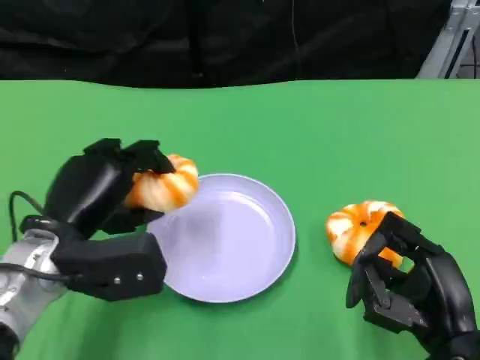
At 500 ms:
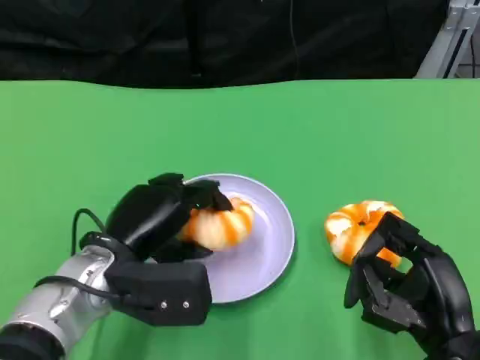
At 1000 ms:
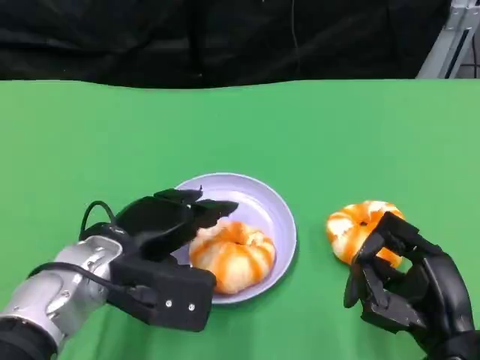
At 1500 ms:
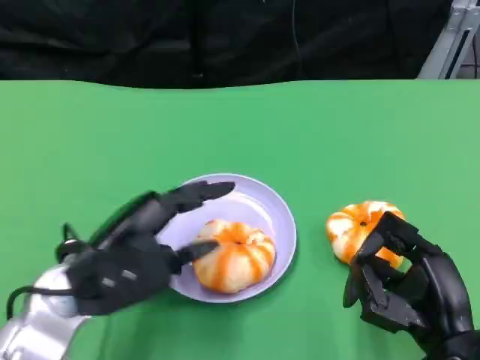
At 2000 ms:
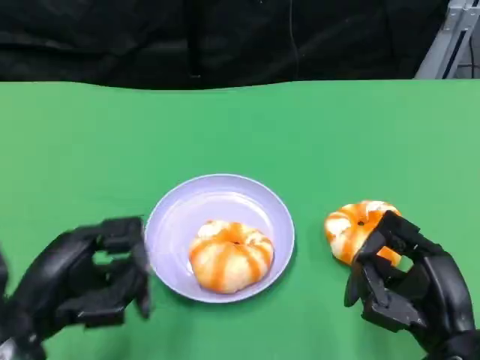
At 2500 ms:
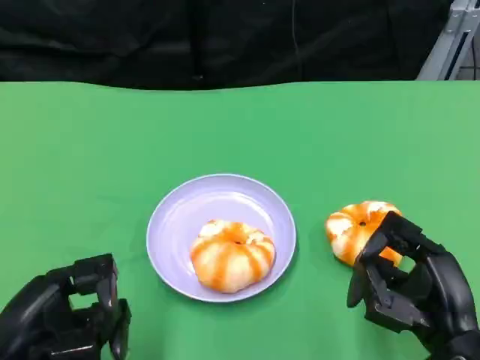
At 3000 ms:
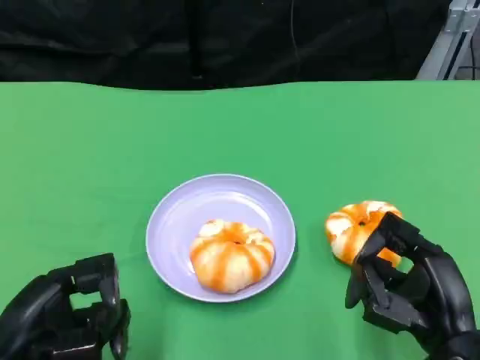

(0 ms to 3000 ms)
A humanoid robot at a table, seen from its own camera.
Task of the whole recording: Grasp the bread from the table and place it into the plate.
1500 ms - 3000 ms: The left hand is displaced backward and to the left by some 10 cm.

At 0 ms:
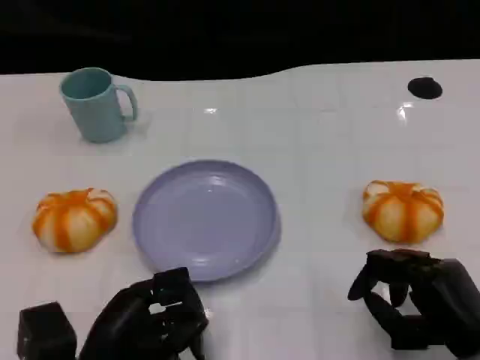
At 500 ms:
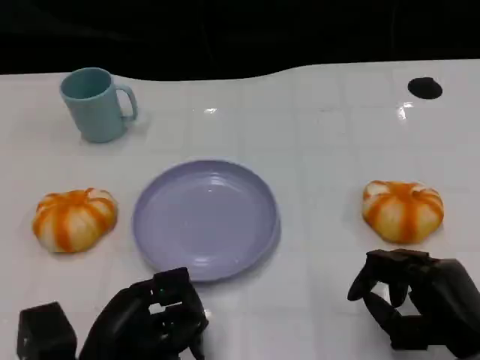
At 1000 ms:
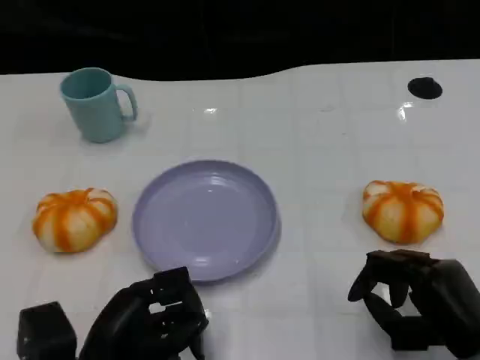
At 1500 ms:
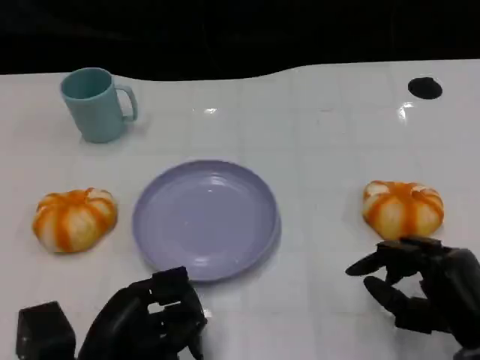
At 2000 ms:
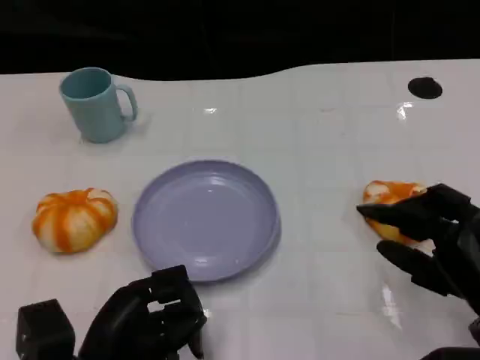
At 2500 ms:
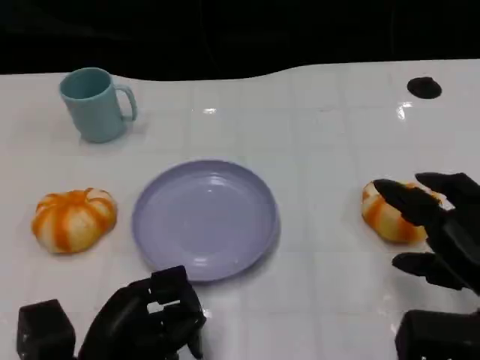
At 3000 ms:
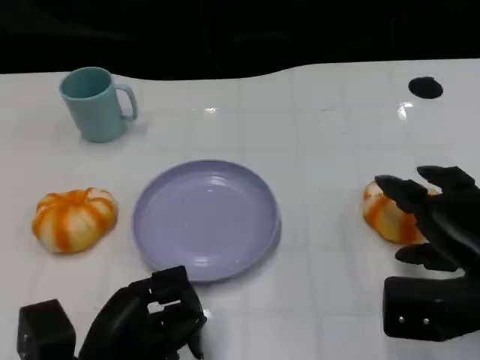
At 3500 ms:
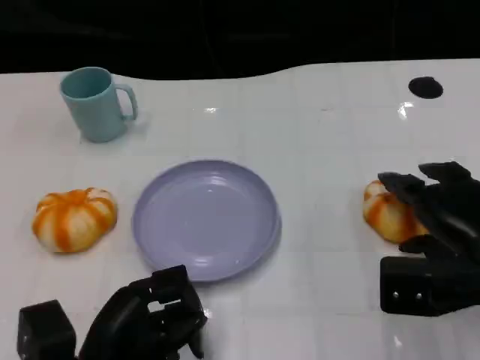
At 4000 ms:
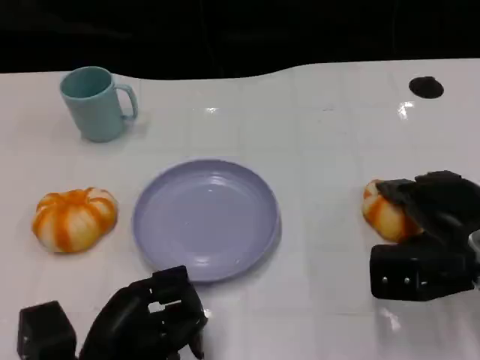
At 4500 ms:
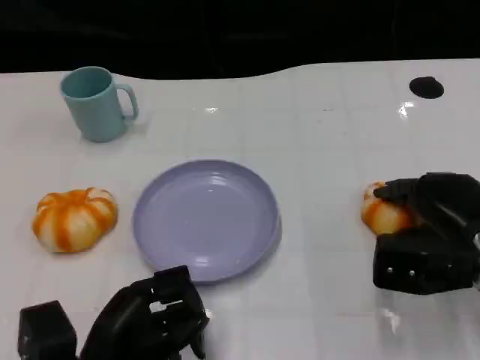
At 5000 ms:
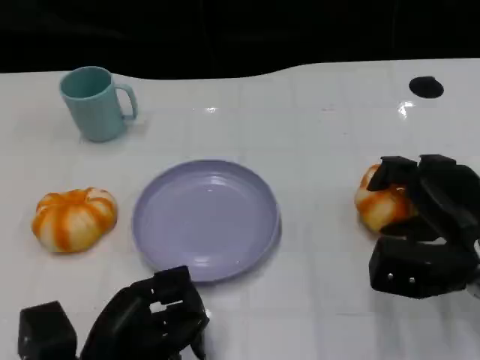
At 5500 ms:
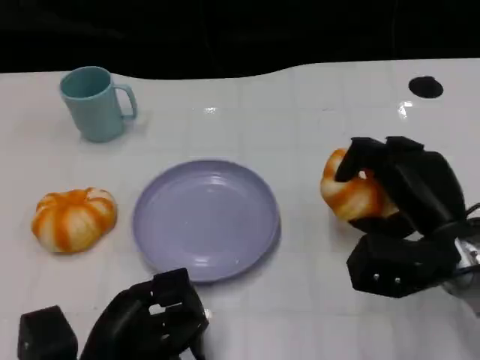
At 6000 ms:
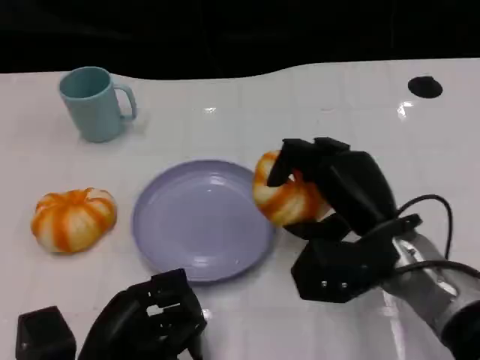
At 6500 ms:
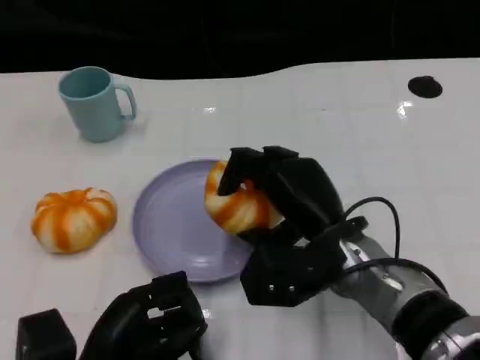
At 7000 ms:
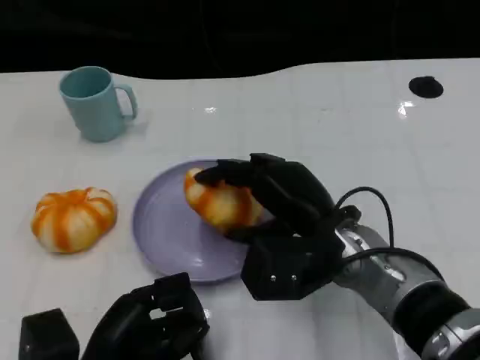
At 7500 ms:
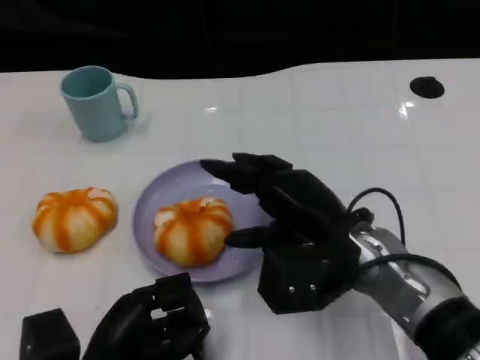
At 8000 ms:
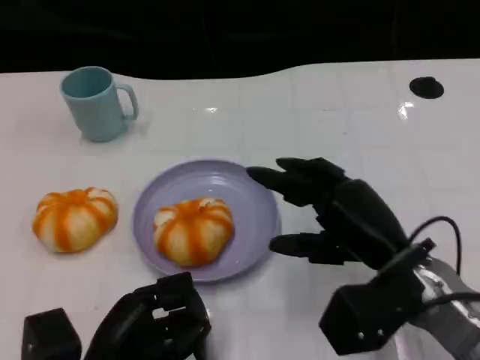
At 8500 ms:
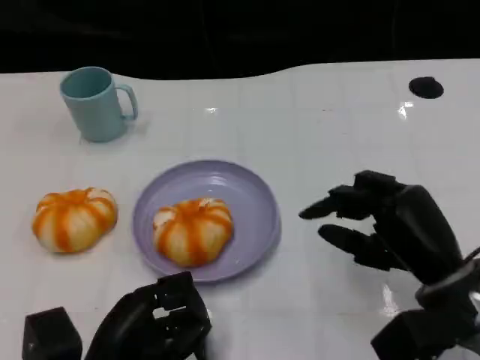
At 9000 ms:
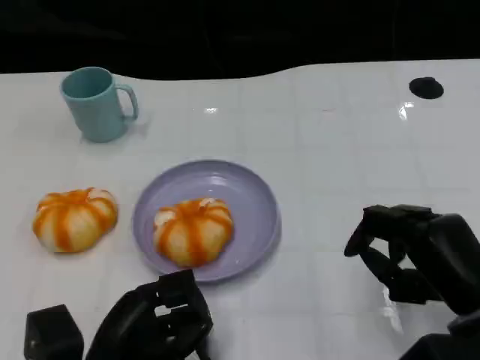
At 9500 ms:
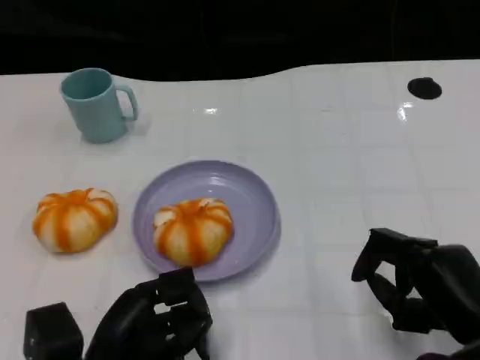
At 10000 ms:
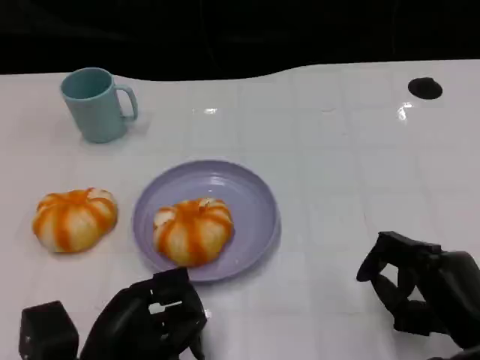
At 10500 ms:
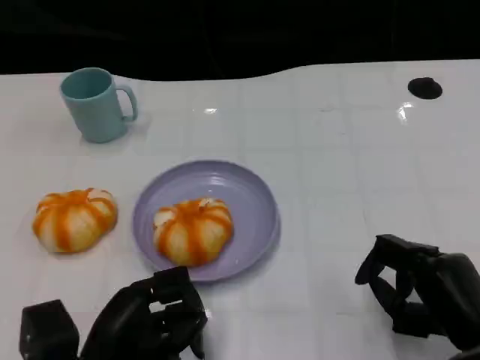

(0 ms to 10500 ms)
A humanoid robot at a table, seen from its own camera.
Task of the whole recording: Grasp the bread from the table and place it into the plate.
0 ms - 2000 ms: There are only small adjustments of the hands.
2000 ms - 4000 ms: The right hand is displaced forward by some 10 cm.
4000 ms - 6500 ms: The right hand travels to the left by approximately 15 cm.
6500 ms - 8500 ms: The right hand travels to the right by some 10 cm.
8500 ms - 10500 ms: The right hand ends up some 5 cm from where it was.
